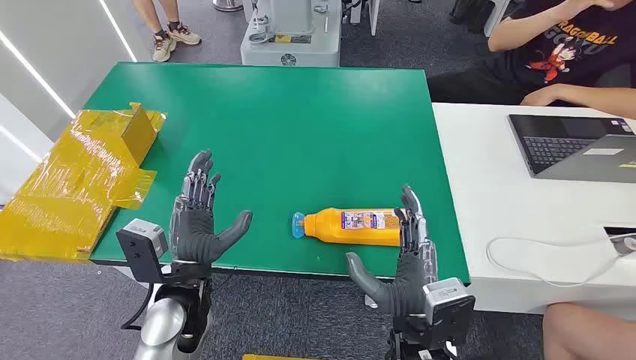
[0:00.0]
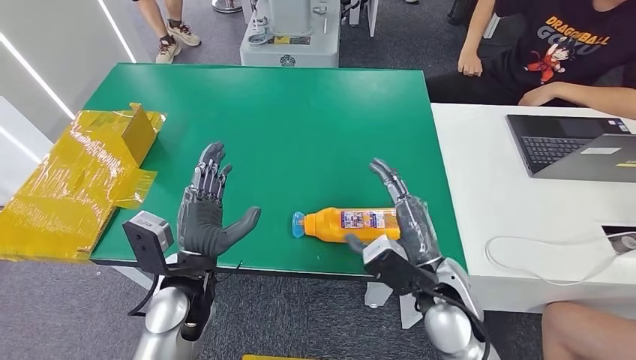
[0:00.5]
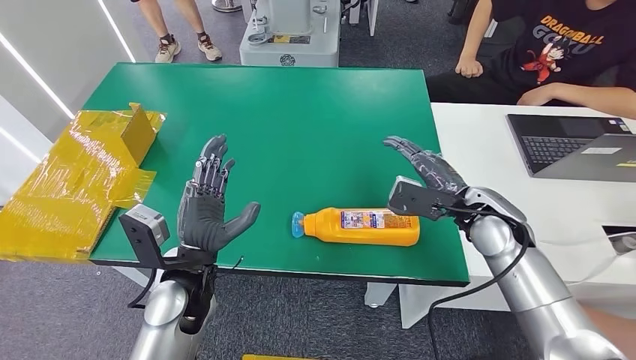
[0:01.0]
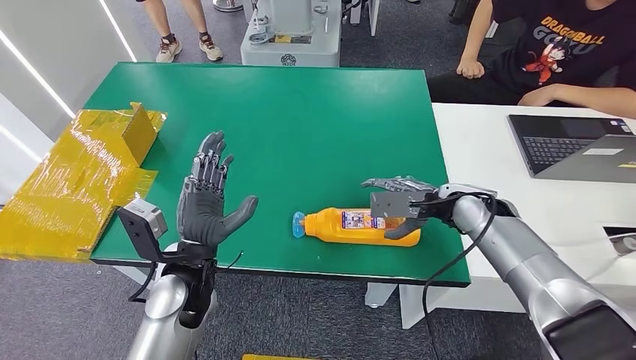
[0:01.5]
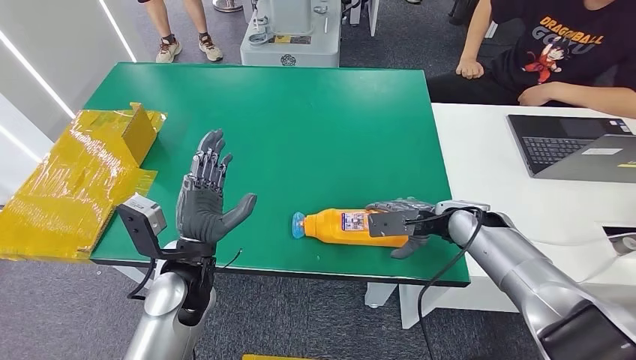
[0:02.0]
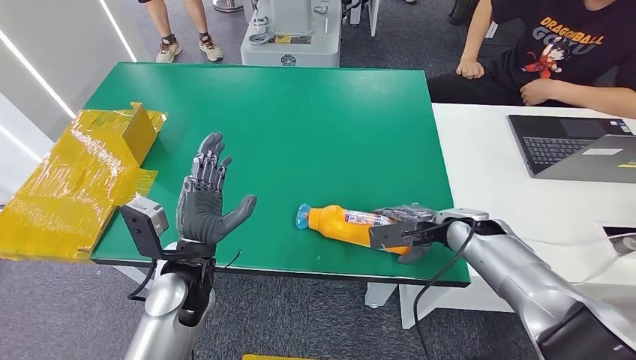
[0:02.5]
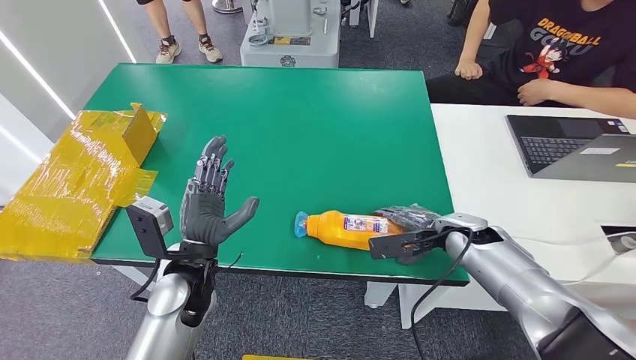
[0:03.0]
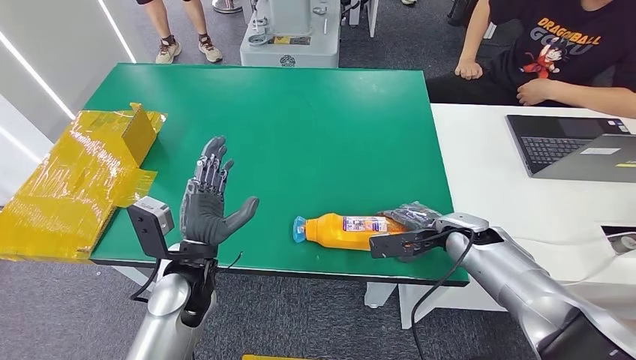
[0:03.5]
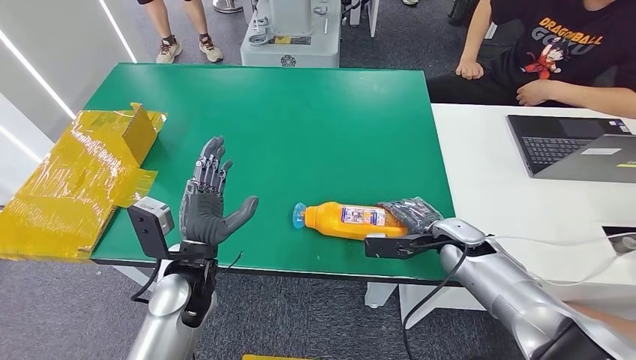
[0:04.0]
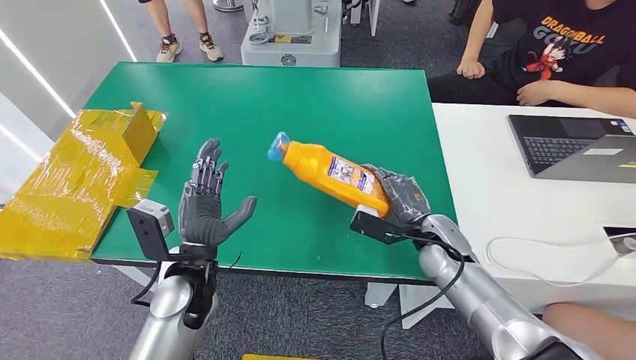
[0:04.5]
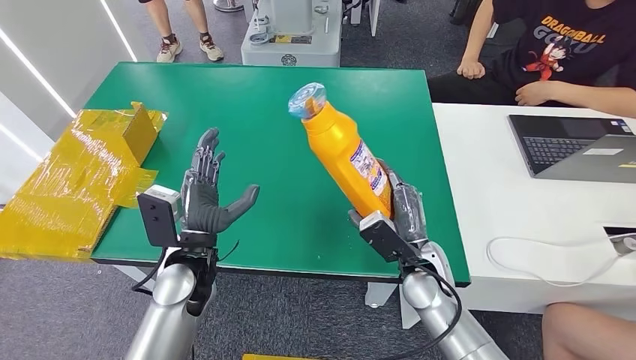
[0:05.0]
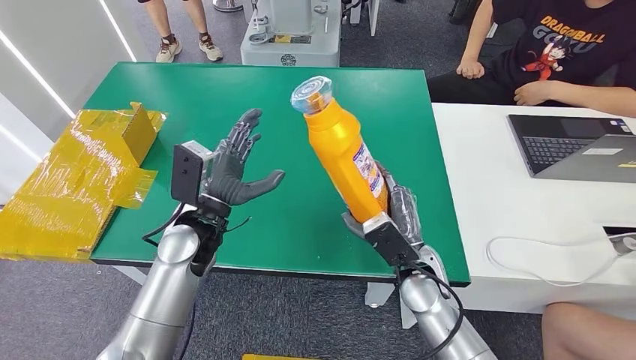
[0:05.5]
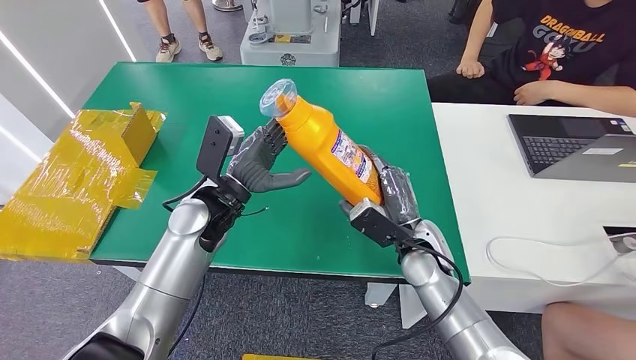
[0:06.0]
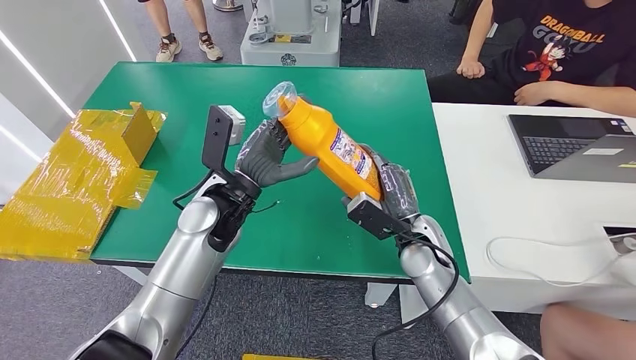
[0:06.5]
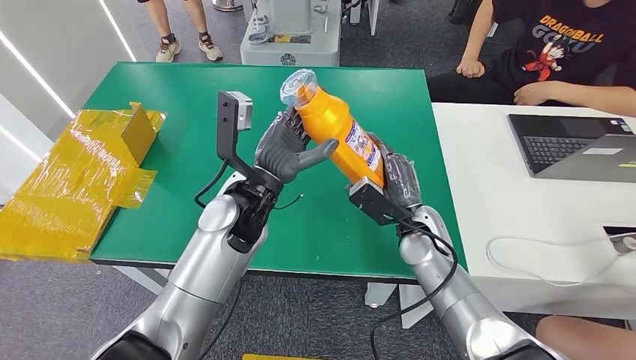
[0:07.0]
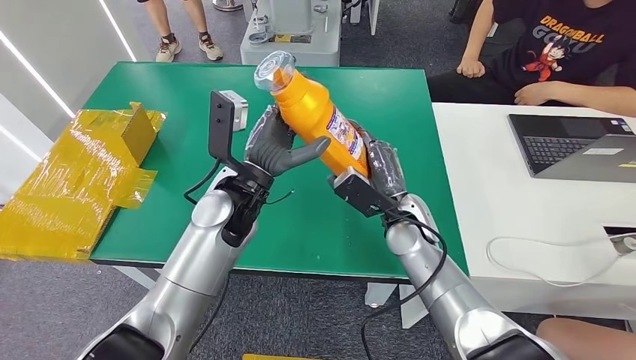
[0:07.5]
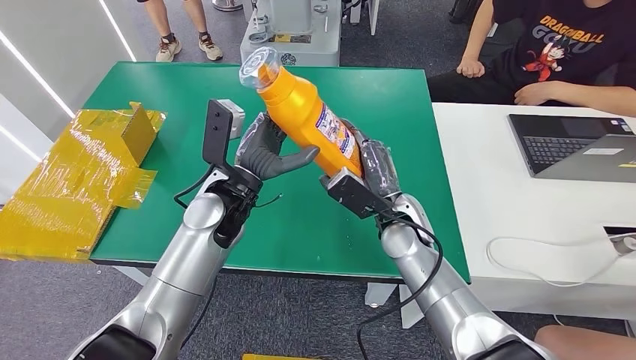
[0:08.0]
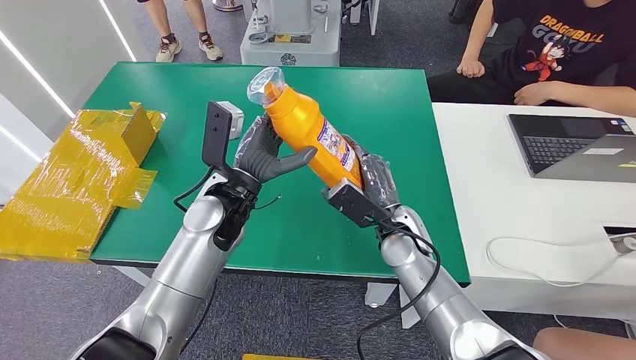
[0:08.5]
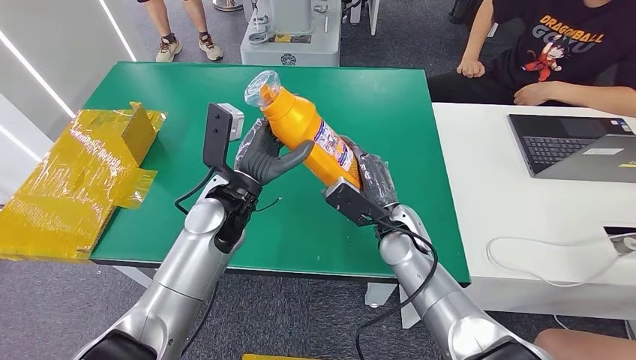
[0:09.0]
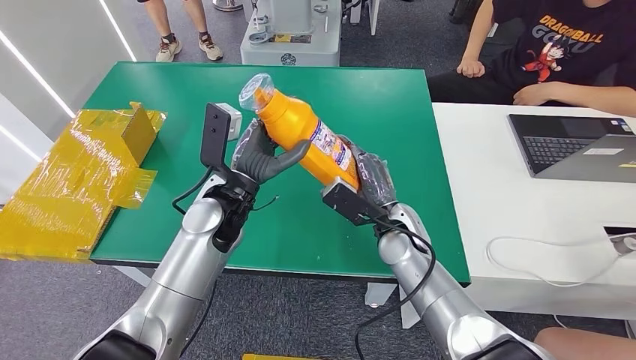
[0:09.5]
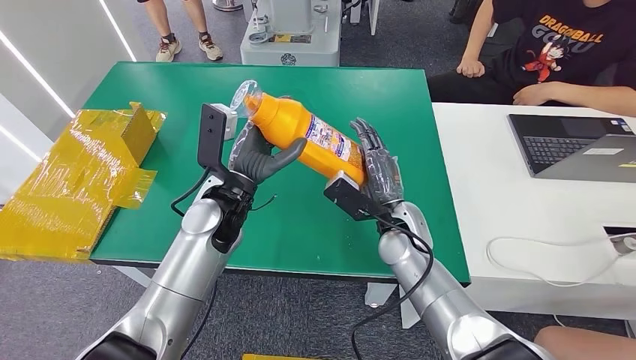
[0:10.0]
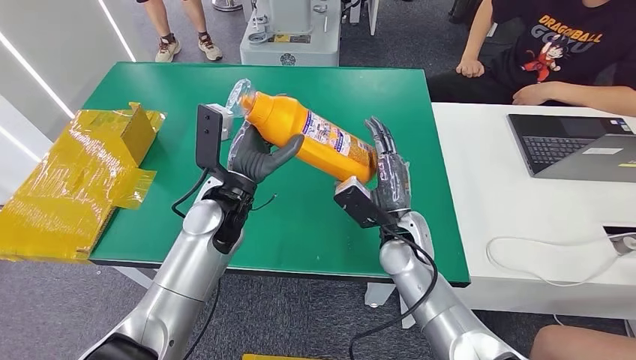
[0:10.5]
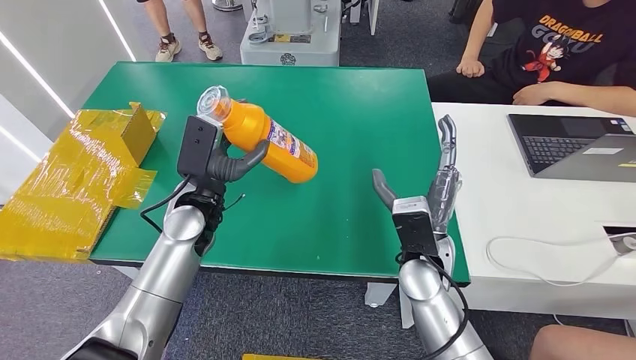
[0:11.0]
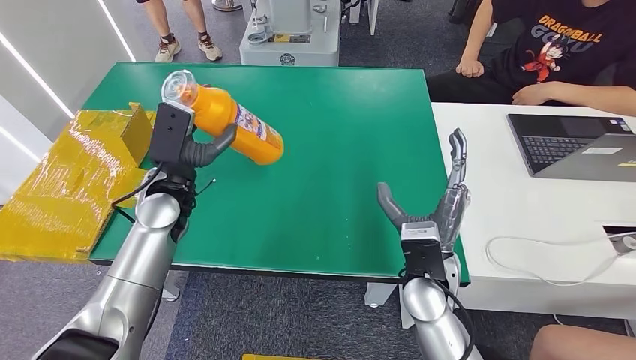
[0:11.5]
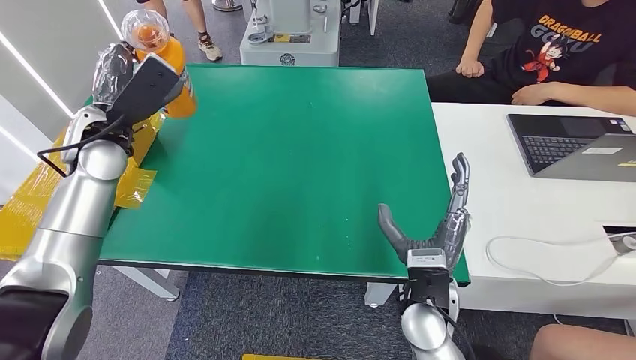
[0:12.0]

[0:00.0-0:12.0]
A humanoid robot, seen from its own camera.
Step, 0:00.0 to 0:05.5: Pick up the bottle from the table.
0:06.0 to 0:08.0: The right hand moves roughly 5 cm.
0:08.0 to 0:10.0: The hands move only a little.

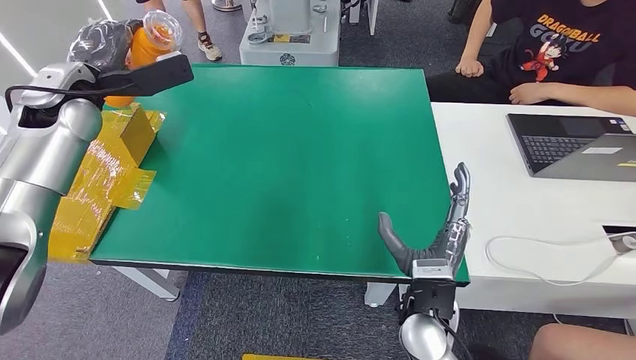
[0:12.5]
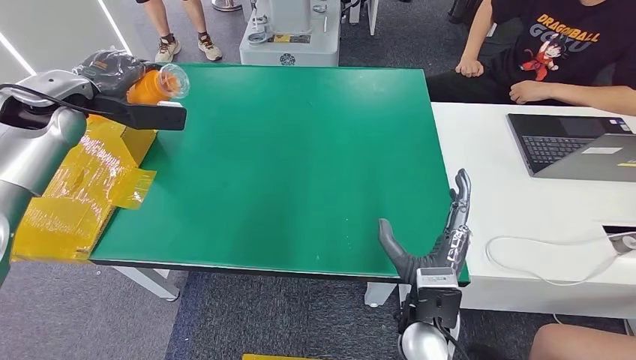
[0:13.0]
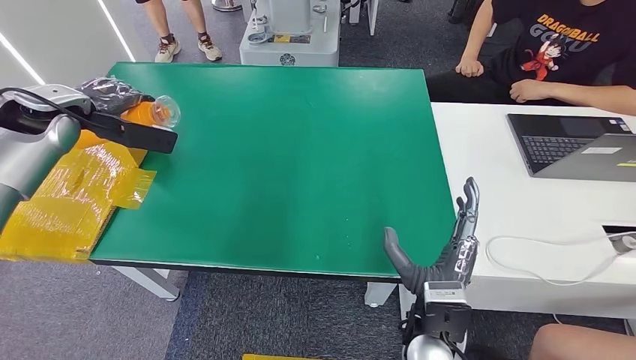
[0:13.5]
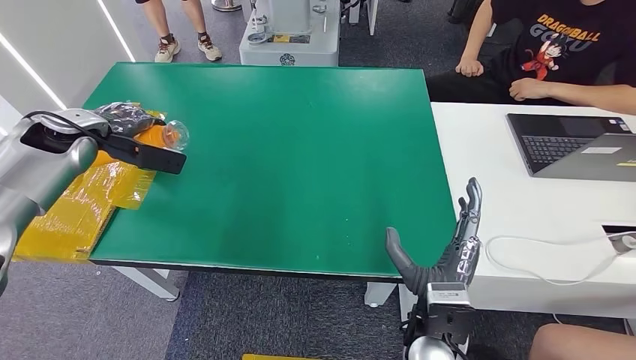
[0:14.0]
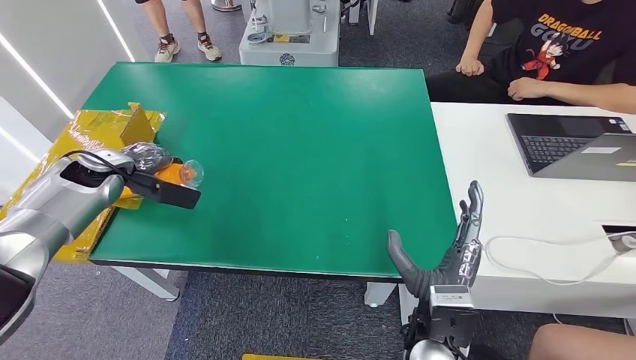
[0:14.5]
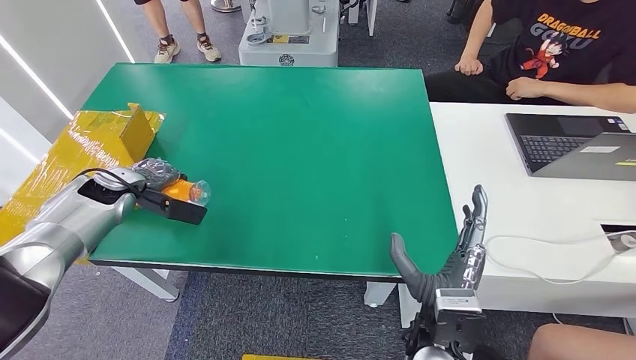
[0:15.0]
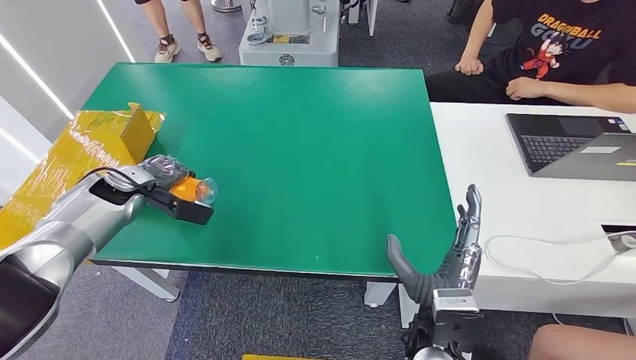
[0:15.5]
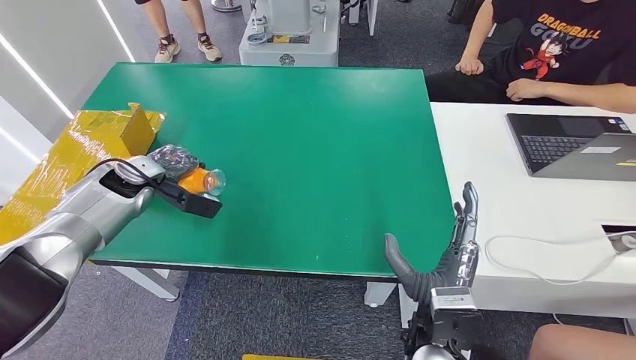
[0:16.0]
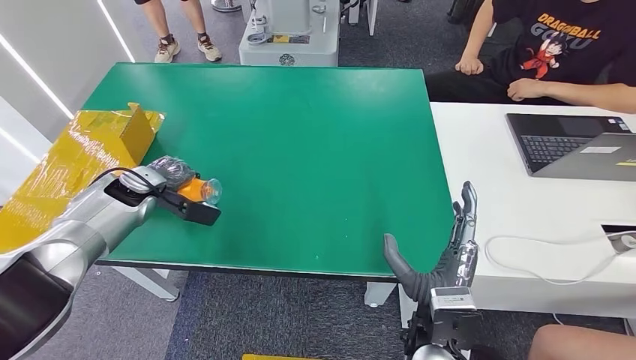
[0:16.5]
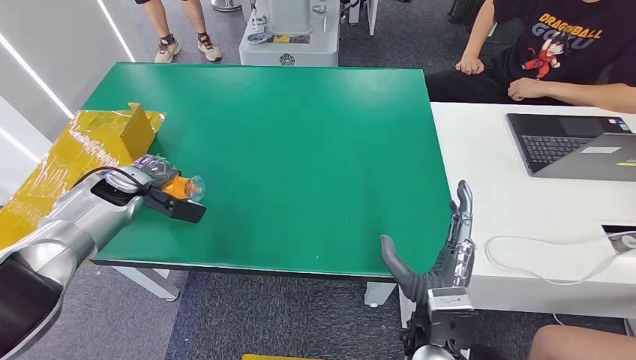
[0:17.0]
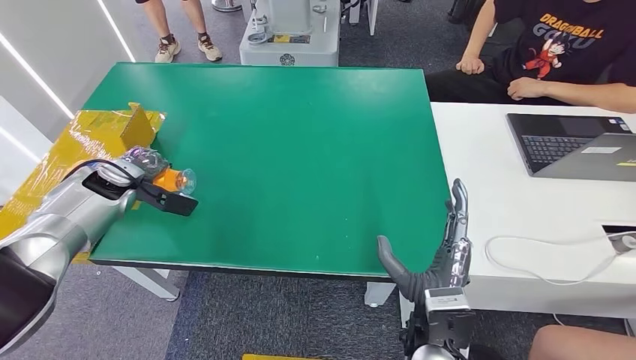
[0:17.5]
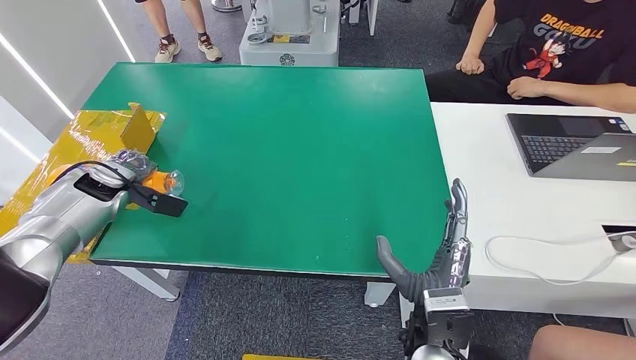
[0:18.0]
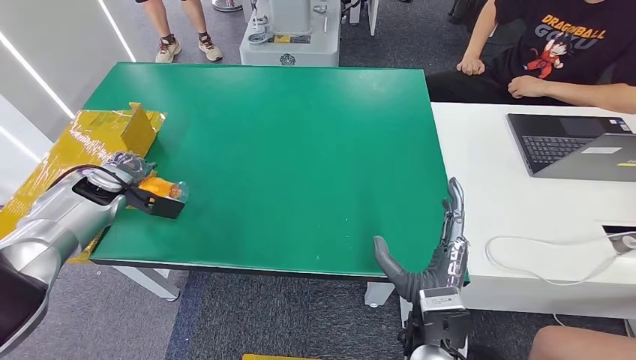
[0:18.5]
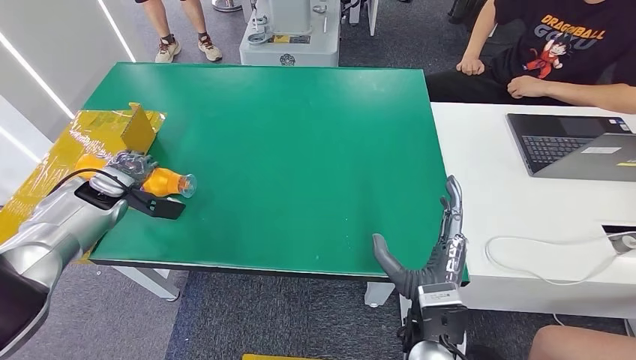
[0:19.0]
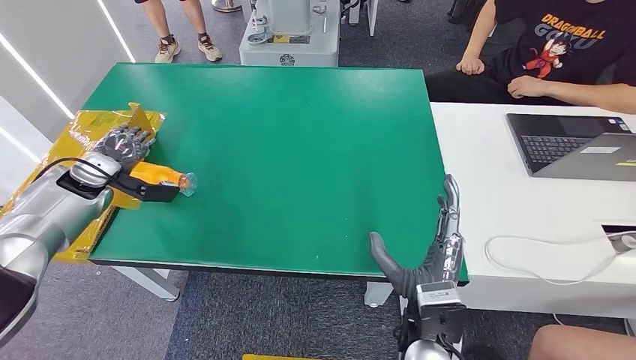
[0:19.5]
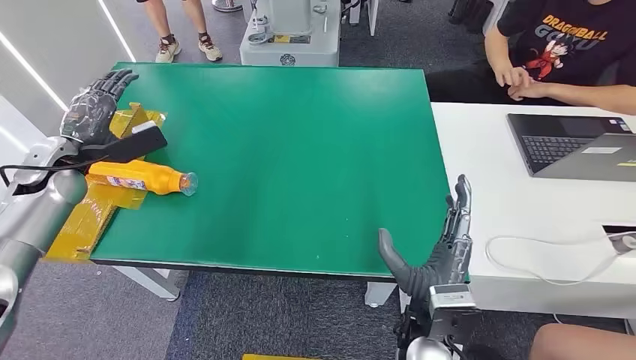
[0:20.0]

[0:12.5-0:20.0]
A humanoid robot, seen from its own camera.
Step, 0:12.5 to 0:19.5: Turn the bottle to the front side.
0:12.5 to 0:14.5: The left hand moves downward and to the left, roughly 15 cm.
0:14.5 to 0:16.5: The left hand ends up about 5 cm from where it was.
0:16.5 to 0:18.0: The left hand moves to the left, roughly 5 cm.
